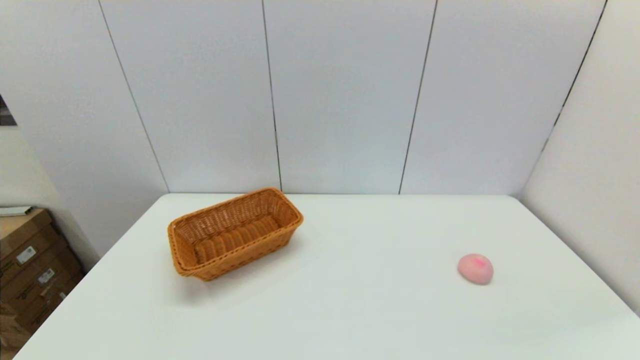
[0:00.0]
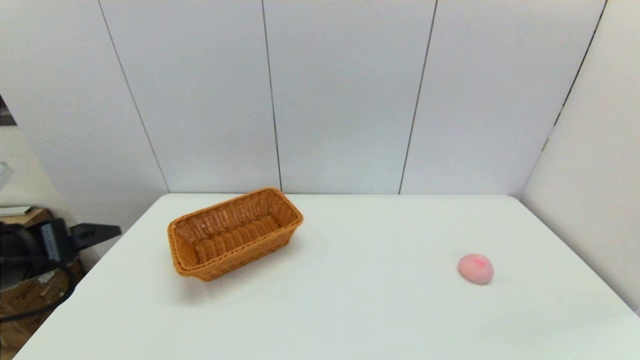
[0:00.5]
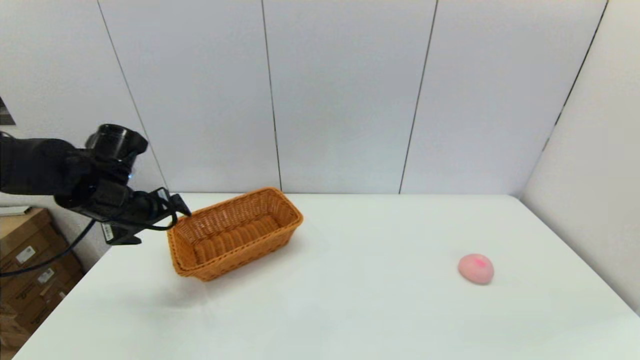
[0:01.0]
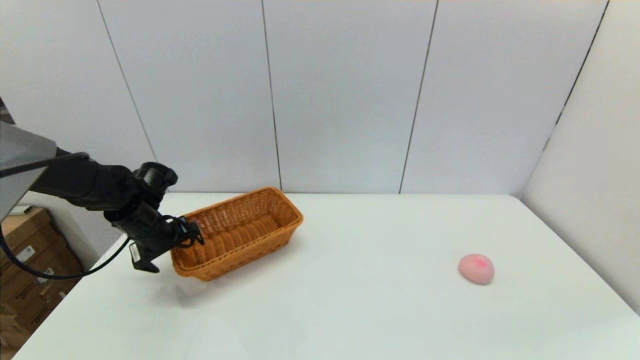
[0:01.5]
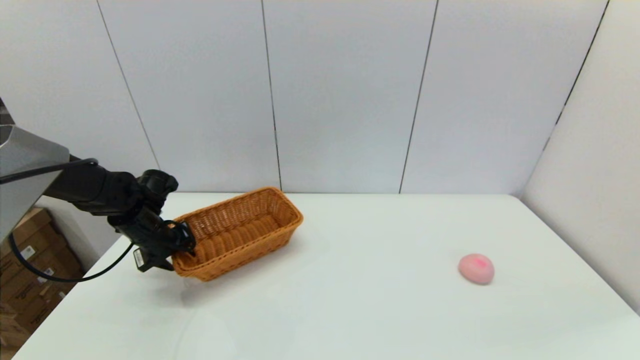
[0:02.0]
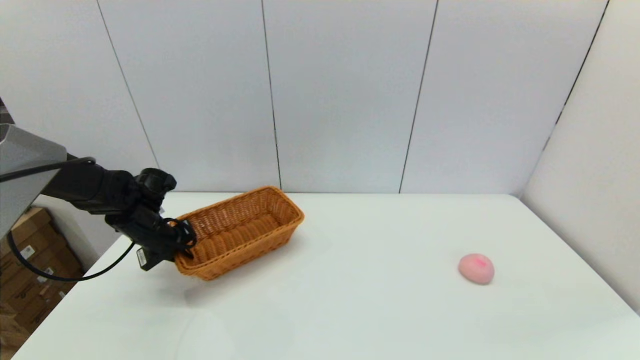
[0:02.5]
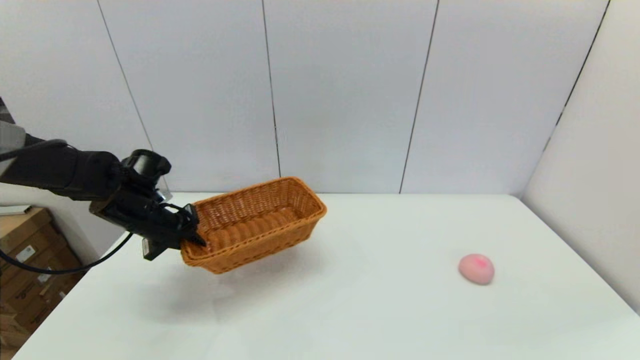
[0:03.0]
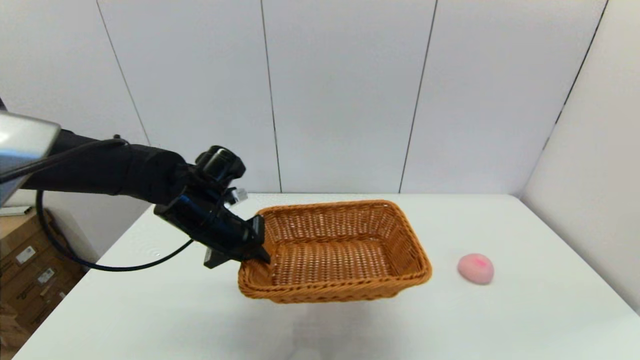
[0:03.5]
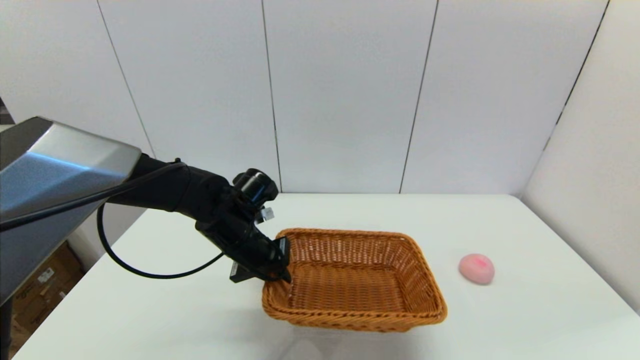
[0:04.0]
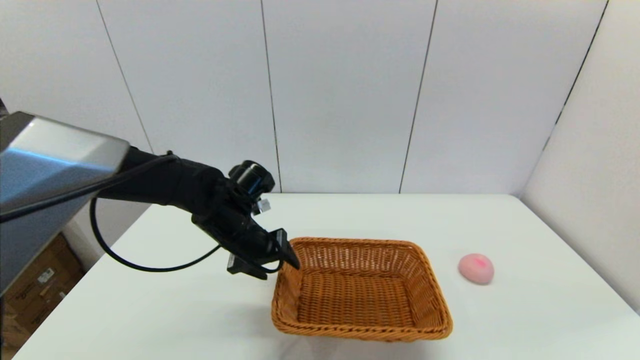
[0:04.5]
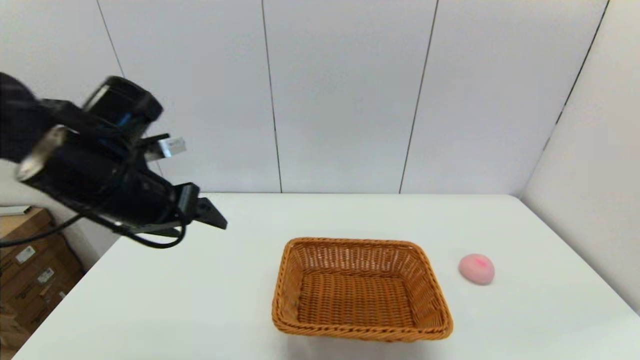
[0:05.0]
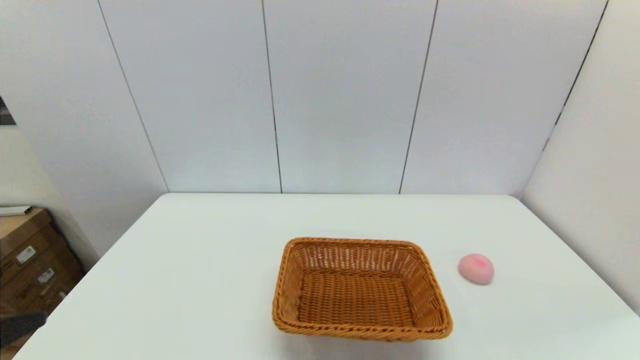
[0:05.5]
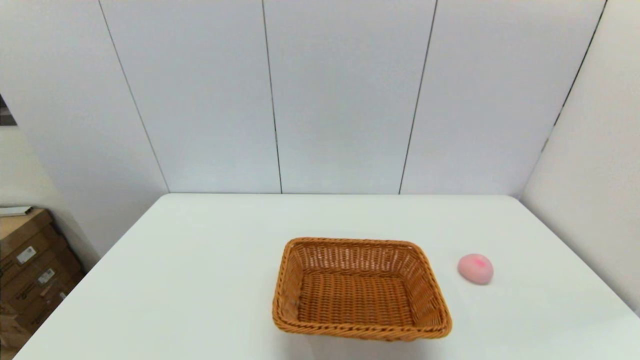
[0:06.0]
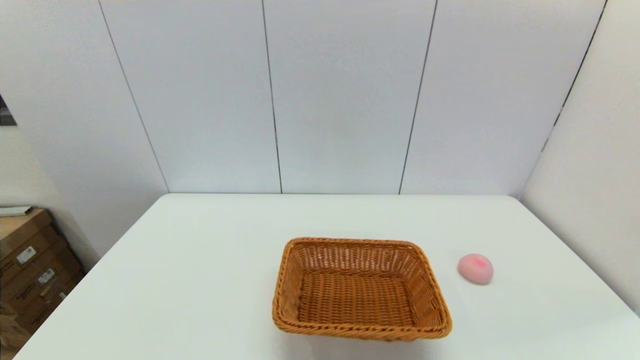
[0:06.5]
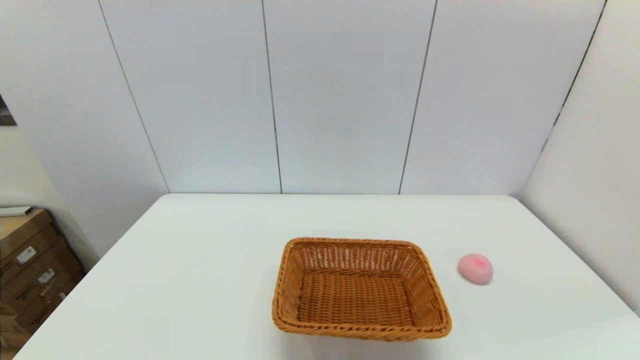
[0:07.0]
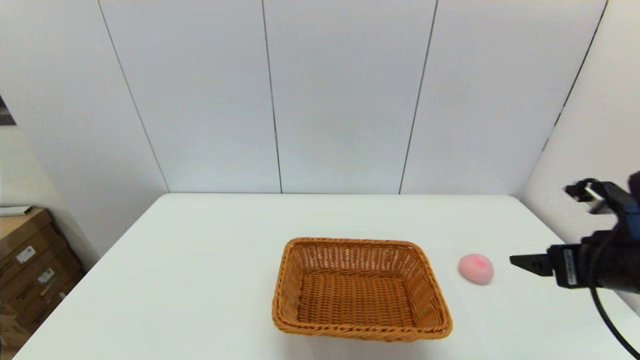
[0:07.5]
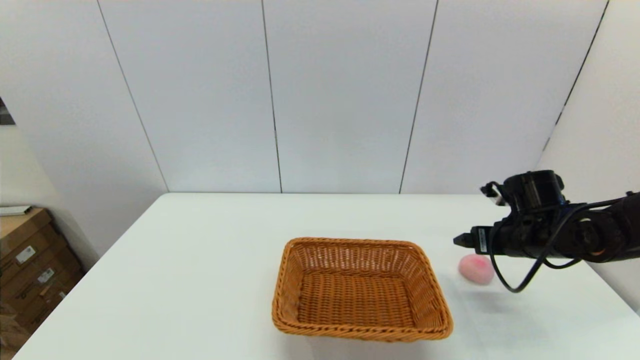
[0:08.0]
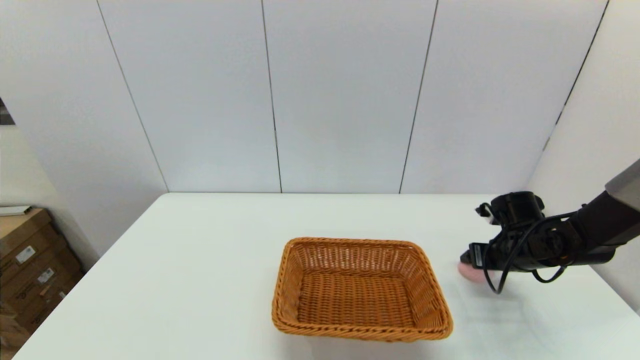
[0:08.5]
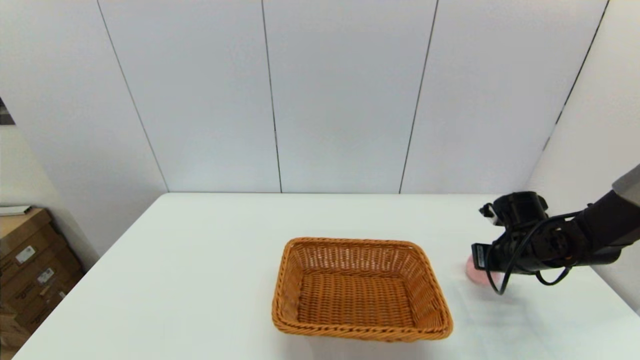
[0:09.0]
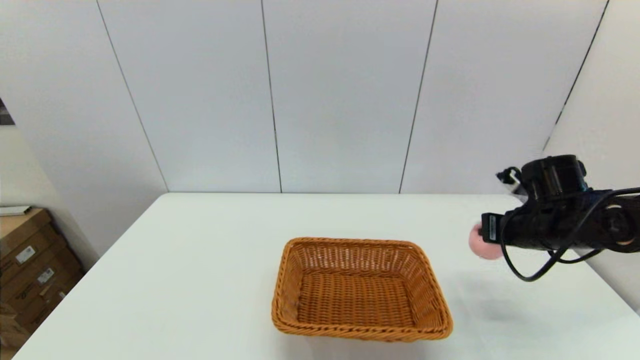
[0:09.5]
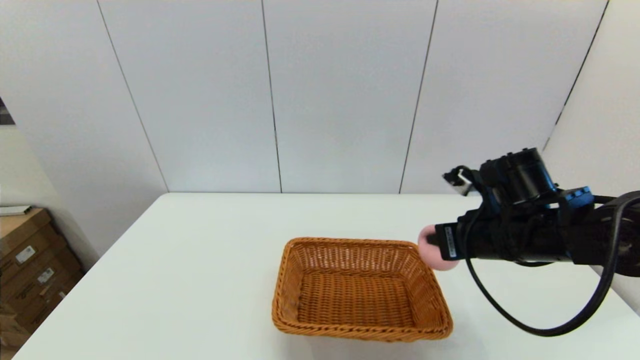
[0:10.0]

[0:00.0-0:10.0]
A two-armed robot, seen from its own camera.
Step, 0:00.0 to 0:02.0: Grasp the light basket with the left gripper.
Step, 0:02.5 to 0:04.0: Place the light basket on the middle of the table with the left gripper.
Step, 0:04.5 to 0:08.5: Grasp the peach with the right gripper.
0:00.0 to 0:02.0: The left gripper moves forward, about 40 cm, and closes its fingers.
0:02.0 to 0:04.0: The left gripper is displaced to the right by approximately 20 cm.
0:04.0 to 0:06.0: The left gripper shifts approximately 40 cm backward and to the left, and opens.
0:06.0 to 0:08.0: The right gripper travels forward by approximately 35 cm.
0:08.0 to 0:10.0: The right gripper shifts approximately 15 cm to the left, upward and backward, and closes.

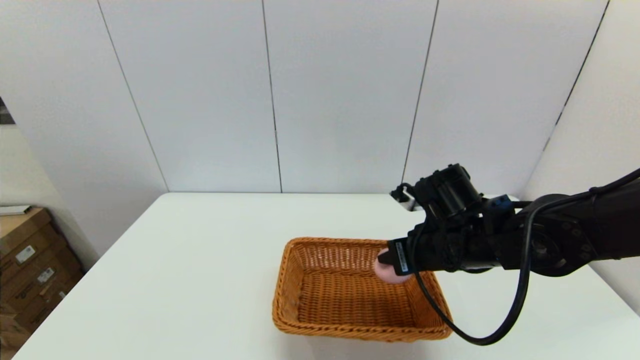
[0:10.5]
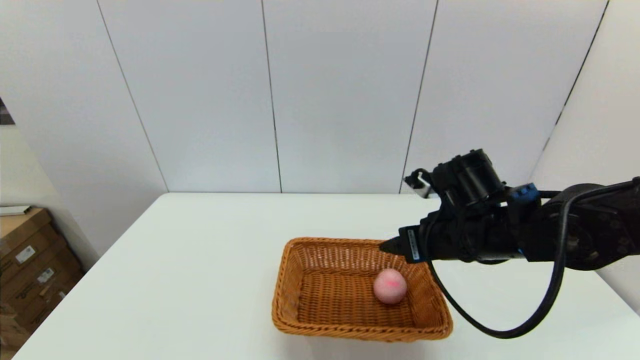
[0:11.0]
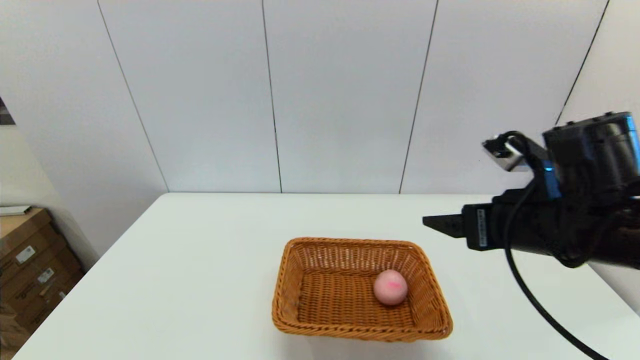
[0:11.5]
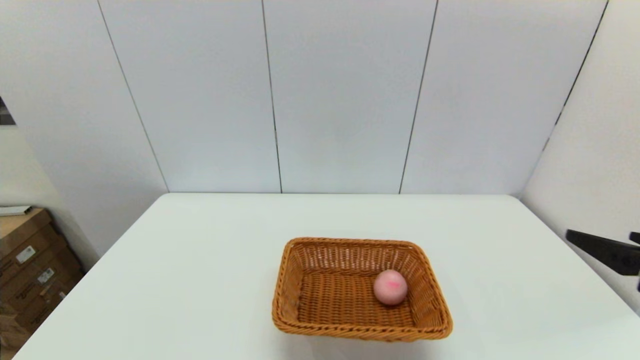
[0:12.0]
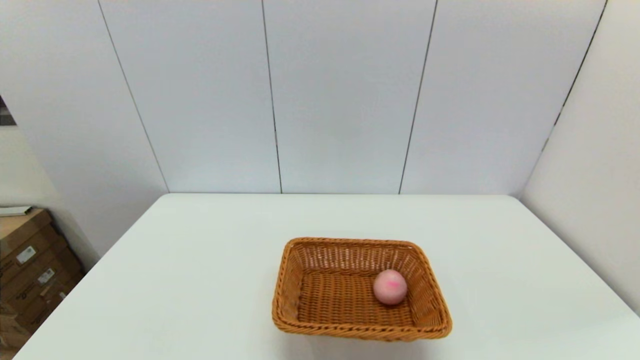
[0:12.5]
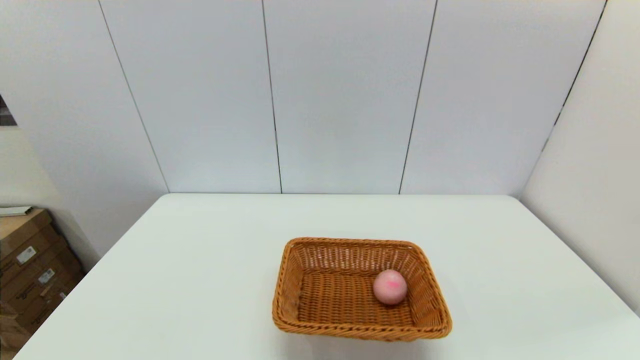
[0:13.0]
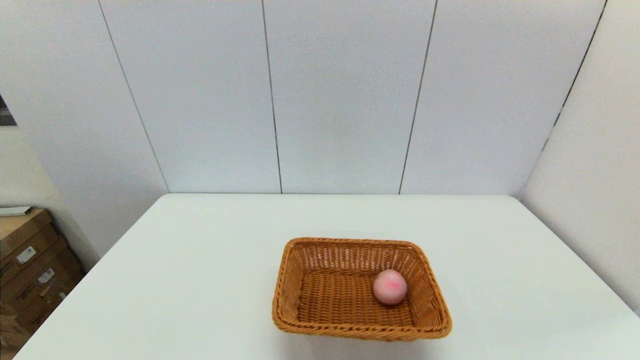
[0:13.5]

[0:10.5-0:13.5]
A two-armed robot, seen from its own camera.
0:10.5 to 0:12.0: The right gripper travels backward, to the right and upward by about 25 cm, and opens up.
0:12.0 to 0:13.5: The right gripper heads downward and backward, covering about 20 cm.

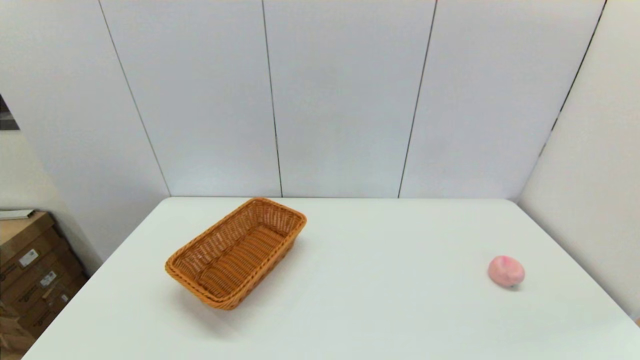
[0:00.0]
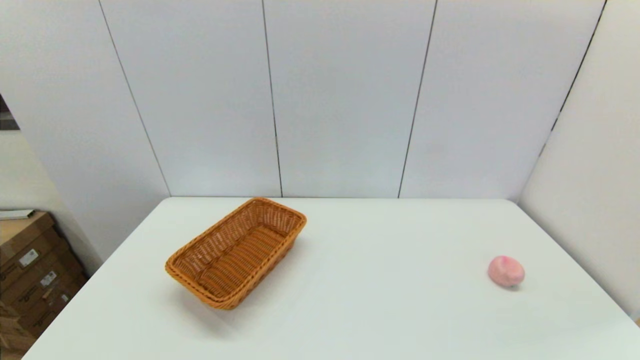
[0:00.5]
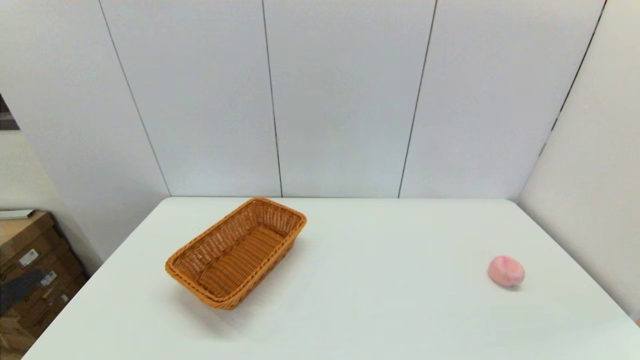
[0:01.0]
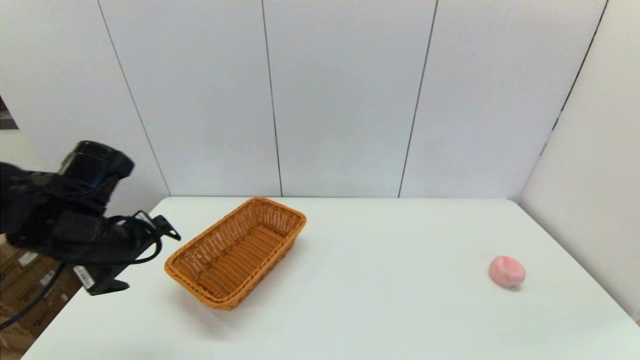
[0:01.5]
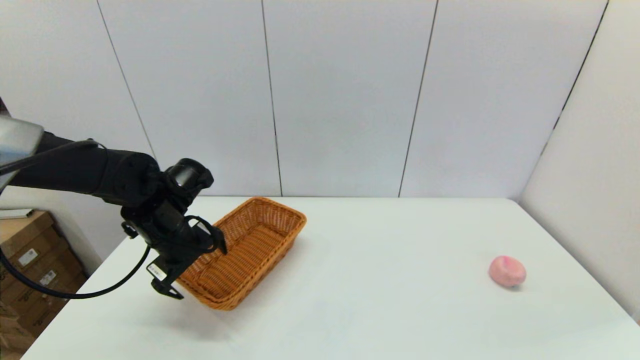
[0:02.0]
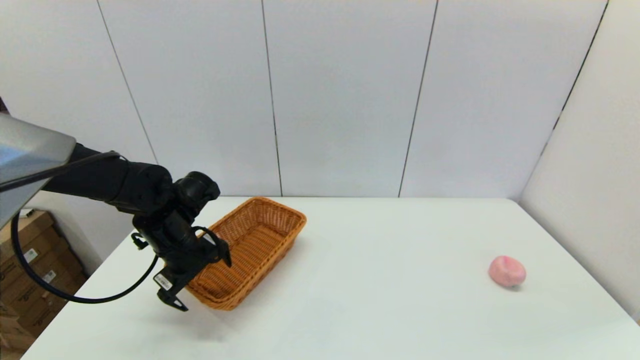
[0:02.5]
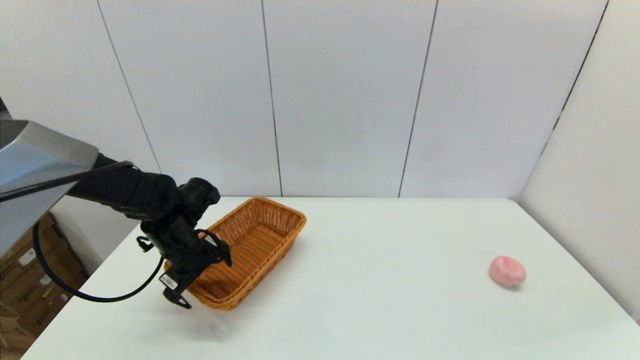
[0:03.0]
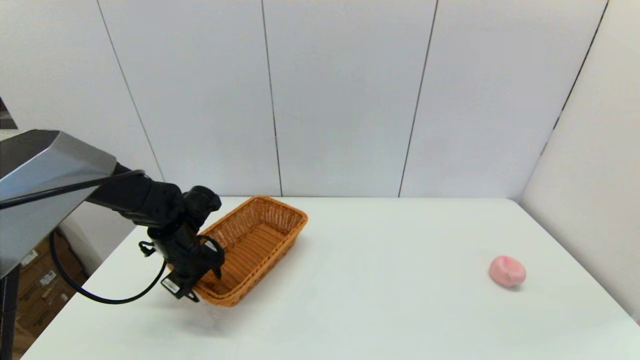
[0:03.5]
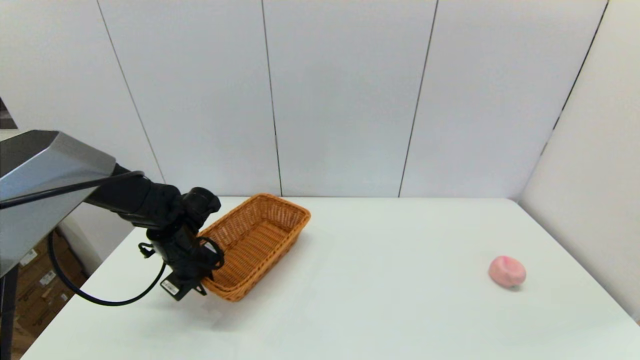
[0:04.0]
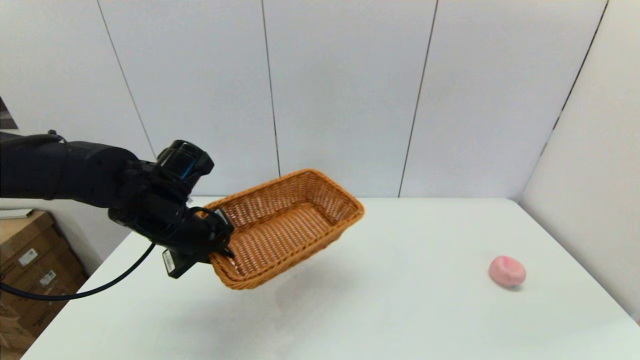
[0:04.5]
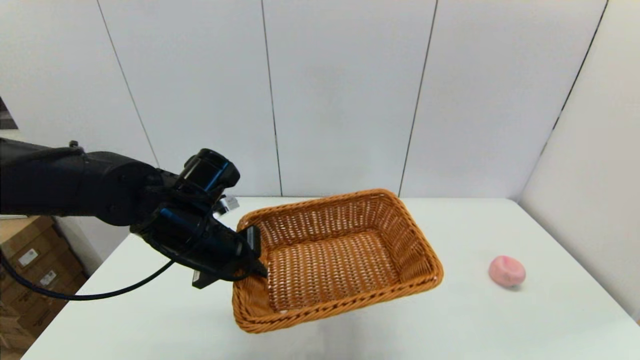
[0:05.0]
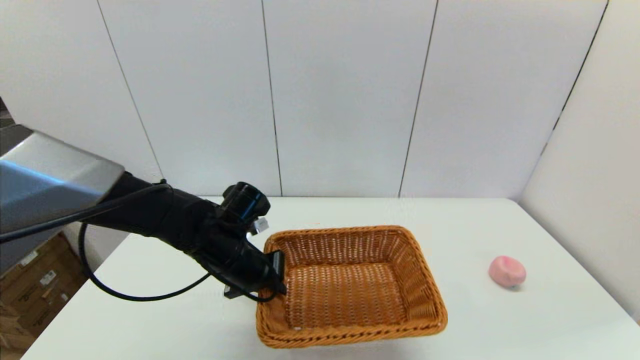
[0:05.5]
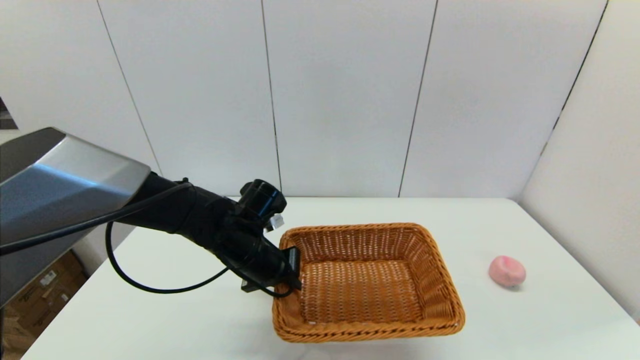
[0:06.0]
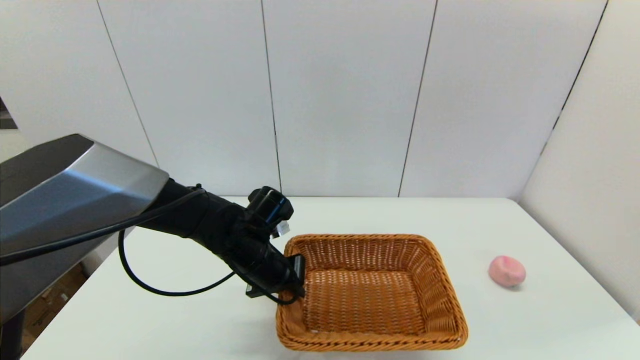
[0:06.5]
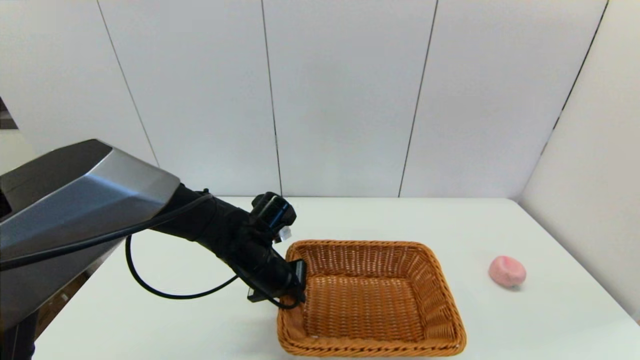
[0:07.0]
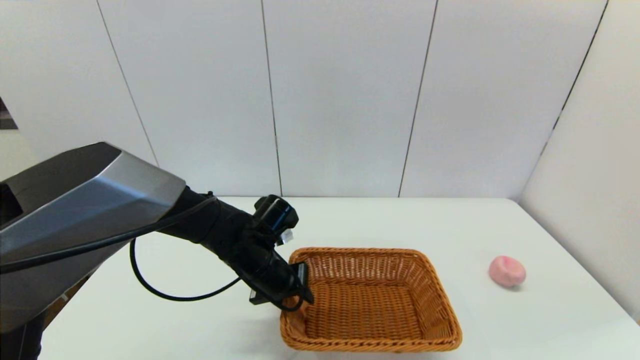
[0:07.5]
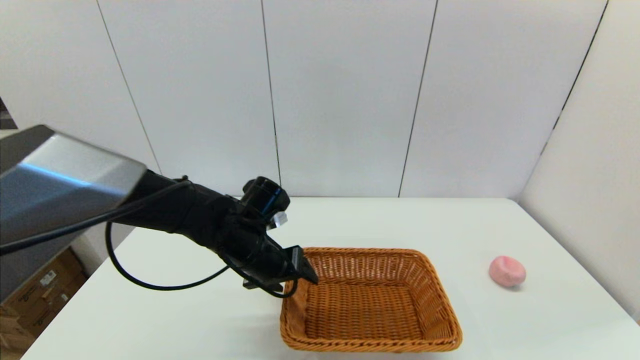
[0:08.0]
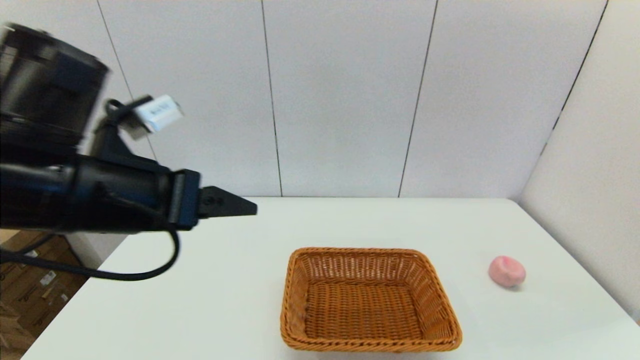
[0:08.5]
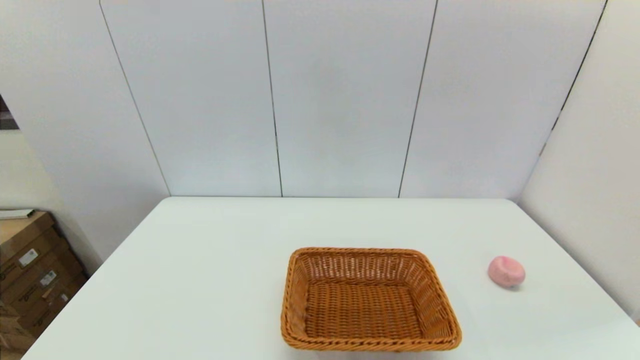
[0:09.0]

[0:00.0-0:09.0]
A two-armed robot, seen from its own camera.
Step, 0:00.0 to 0:04.0: Grasp the light basket with the left gripper.
Step, 0:04.5 to 0:08.0: Place the light basket on the middle of the table with the left gripper.
0:00.0 to 0:02.0: The left gripper goes roughly 35 cm forward.
0:02.0 to 0:04.5: The left gripper moves about 5 cm downward and comes back, and closes its fingers.
0:04.5 to 0:07.0: The left gripper travels to the right and downward by approximately 15 cm.
0:07.0 to 0:09.0: The left gripper heads backward, upward and to the left, covering about 40 cm, and opens up.
